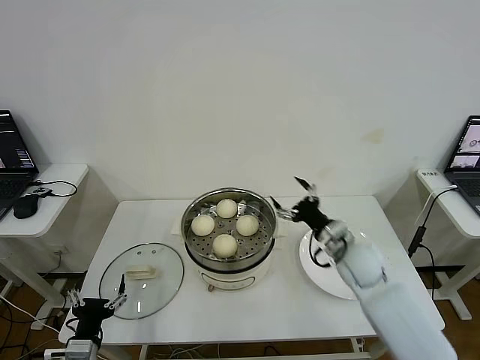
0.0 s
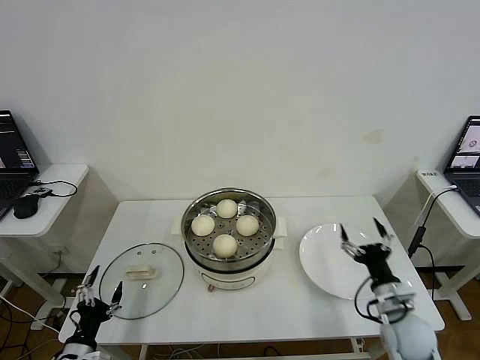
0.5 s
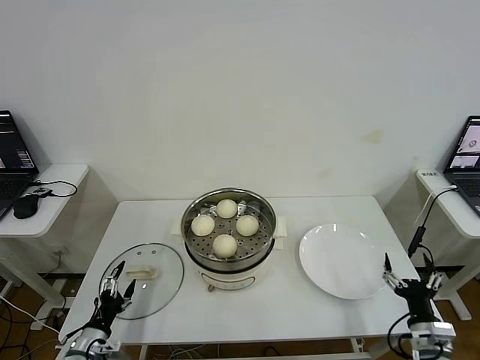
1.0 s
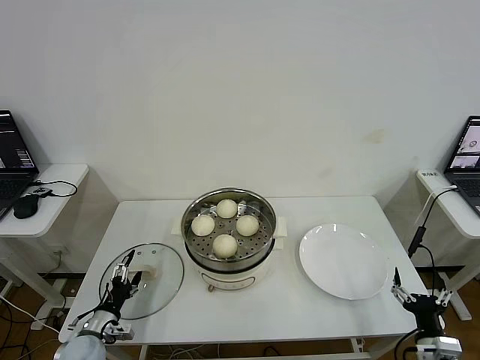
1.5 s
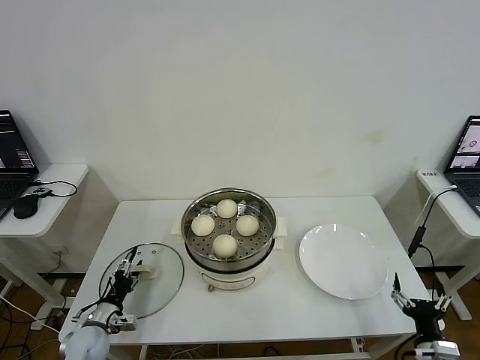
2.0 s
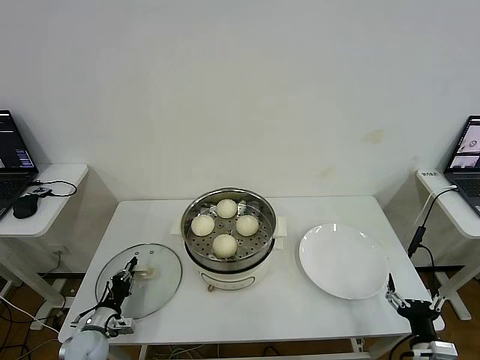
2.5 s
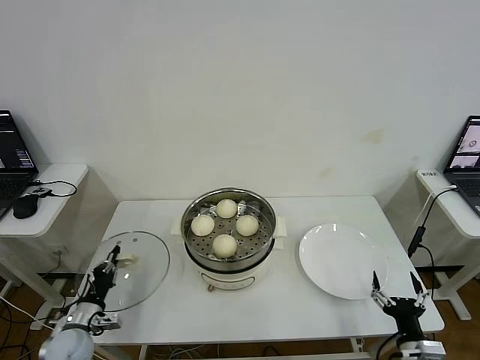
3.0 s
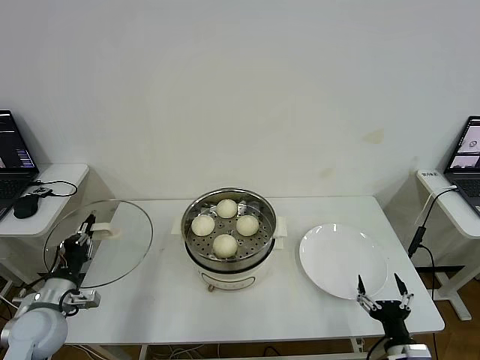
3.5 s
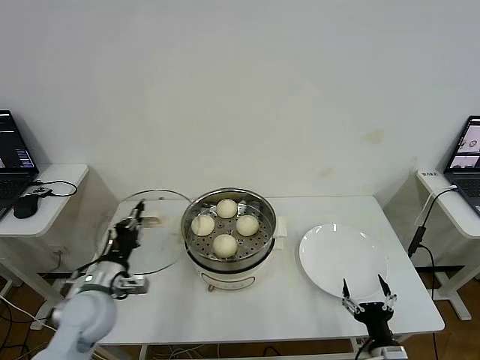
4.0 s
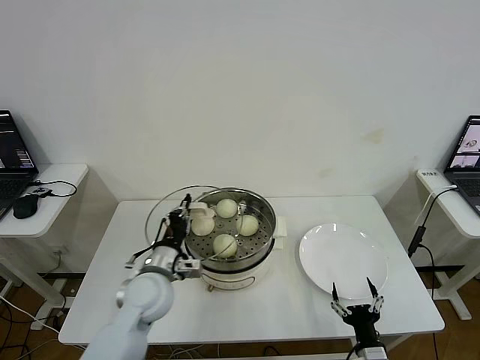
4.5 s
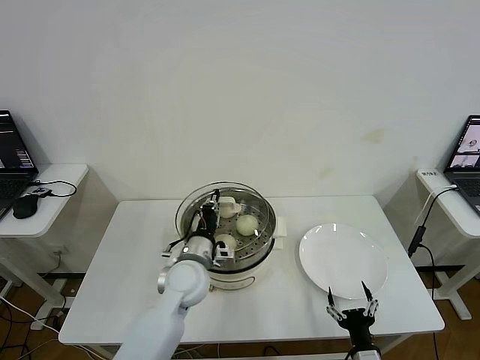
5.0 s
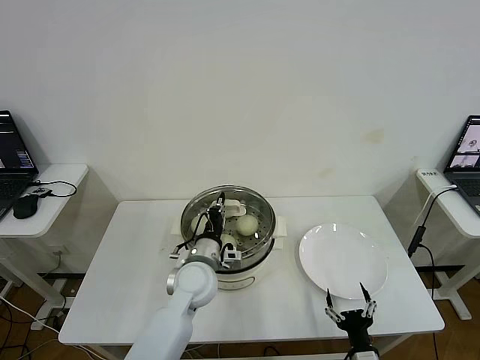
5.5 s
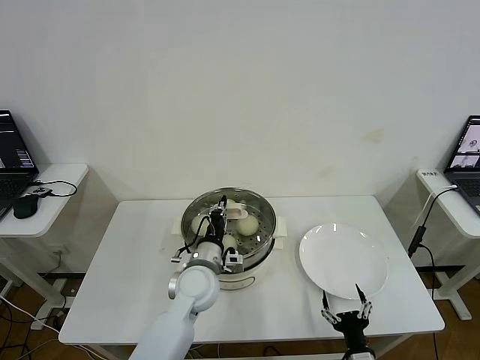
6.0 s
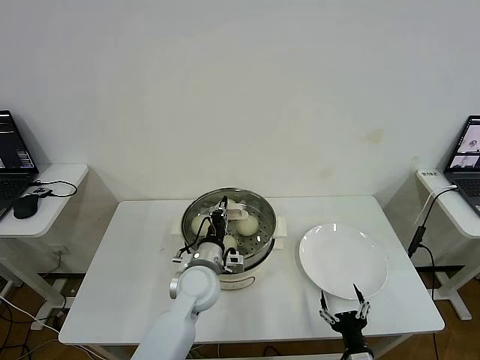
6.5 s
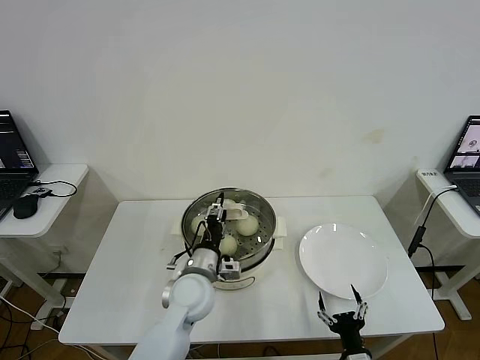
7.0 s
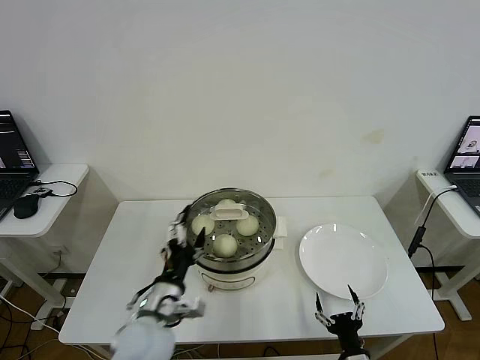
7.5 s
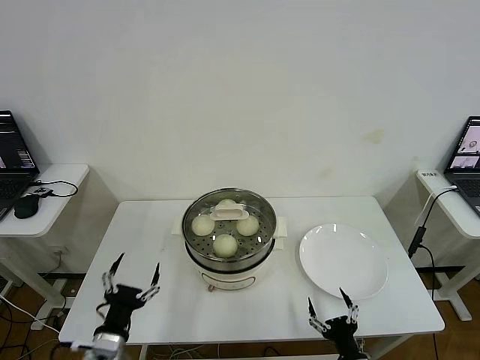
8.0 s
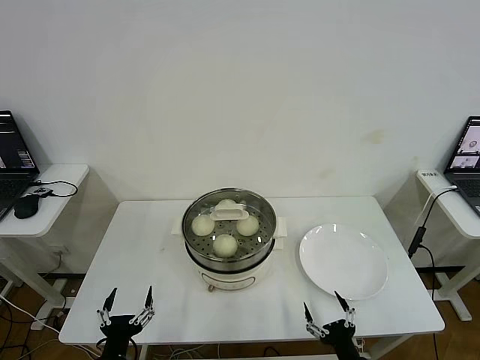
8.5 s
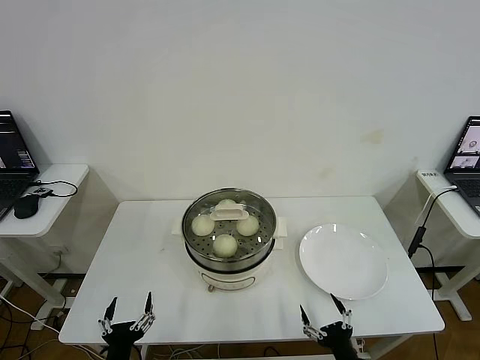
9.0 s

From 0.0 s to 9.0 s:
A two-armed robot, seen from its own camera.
Step, from 0.0 s to 2.5 s: Grasp the pot lid with left gripper.
Step, from 3.0 s to 7.0 s: Place the pot lid on the steamer with left gripper.
From 0.0 s to 2.0 s: The right gripper shifts roughly 30 cm backward, to the right and downward. The left gripper shifts some 15 cm forward, downward and to the left.
From 2.0 s to 4.5 s: The left gripper heads upward and to the right, covering roughly 25 cm, and closes its fingers. Meanwhile the right gripper moves to the left, approximately 10 cm.
From 4.5 s to 7.0 s: The left gripper heads to the right, covering about 10 cm, and opens up.
From 7.0 s to 9.0 s: The left gripper shifts some 30 cm backward, to the left and downward, and opens.
